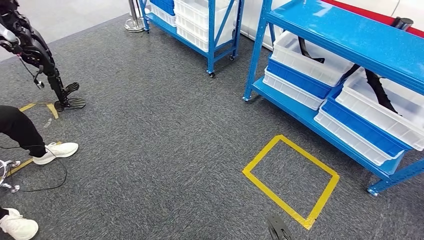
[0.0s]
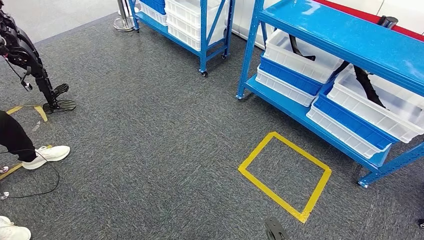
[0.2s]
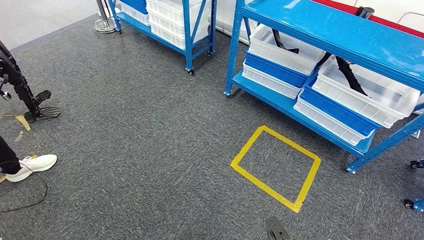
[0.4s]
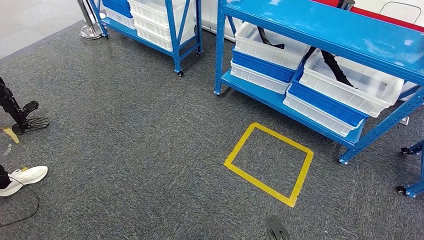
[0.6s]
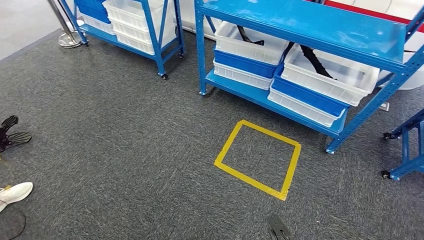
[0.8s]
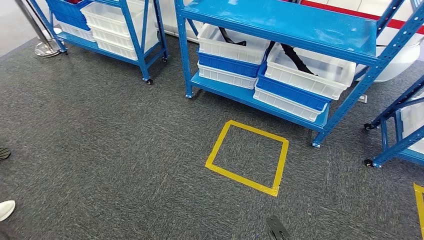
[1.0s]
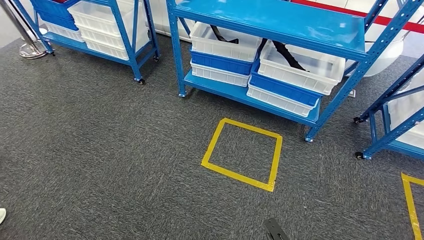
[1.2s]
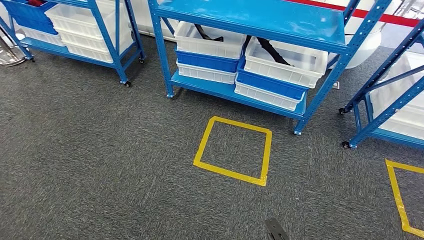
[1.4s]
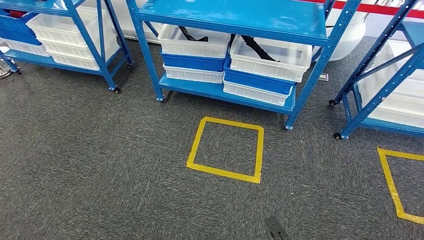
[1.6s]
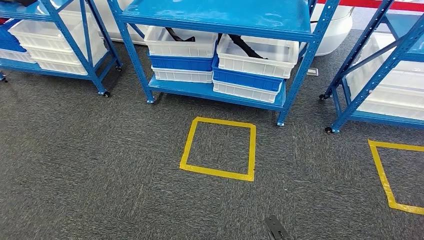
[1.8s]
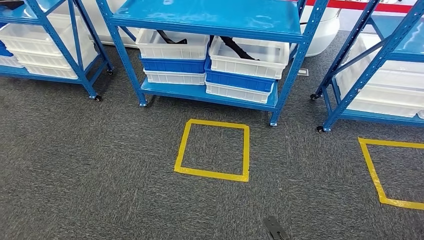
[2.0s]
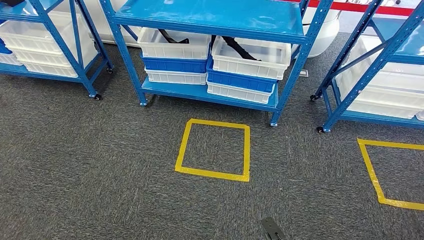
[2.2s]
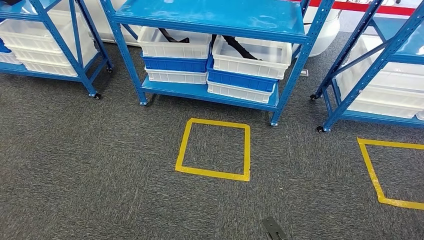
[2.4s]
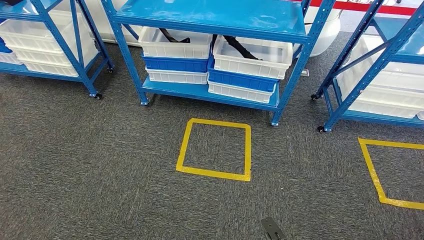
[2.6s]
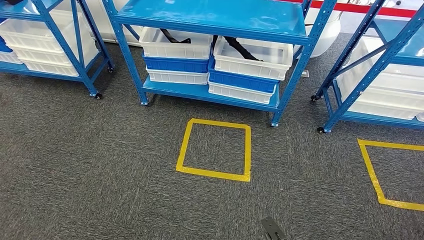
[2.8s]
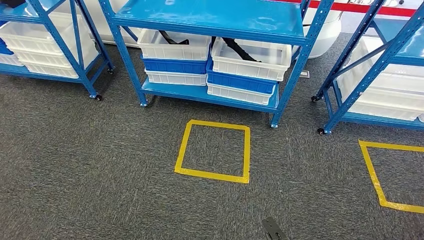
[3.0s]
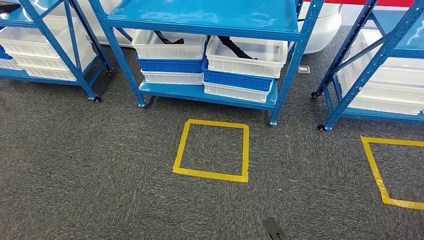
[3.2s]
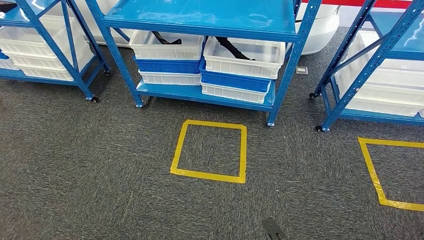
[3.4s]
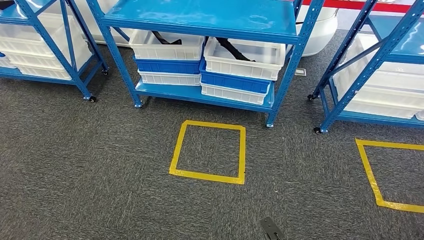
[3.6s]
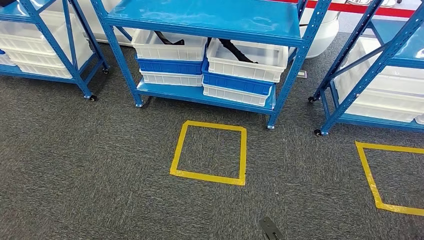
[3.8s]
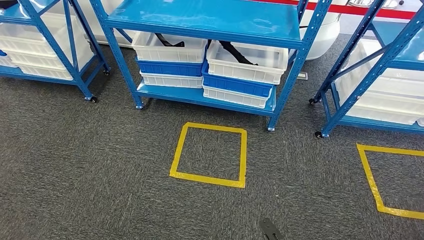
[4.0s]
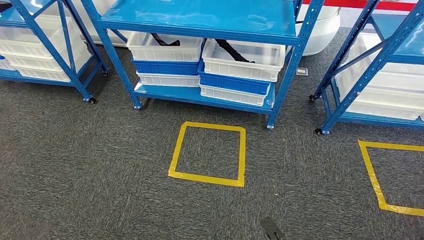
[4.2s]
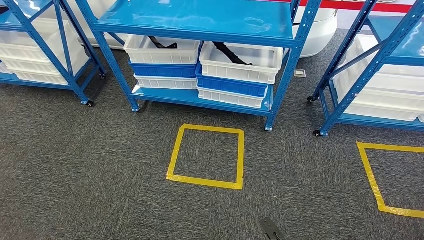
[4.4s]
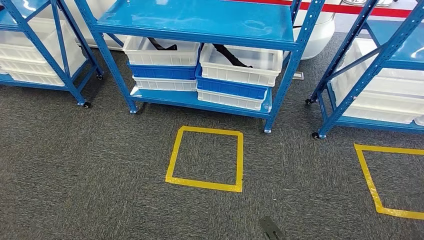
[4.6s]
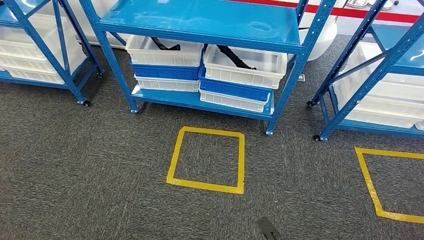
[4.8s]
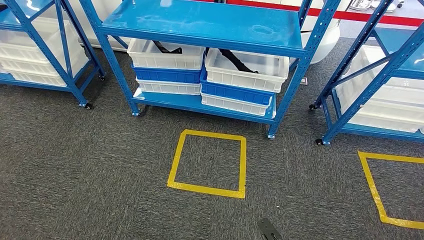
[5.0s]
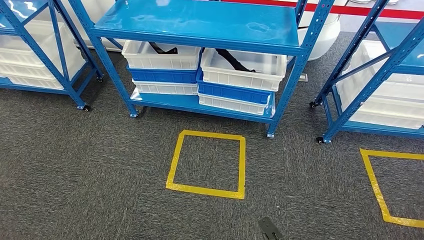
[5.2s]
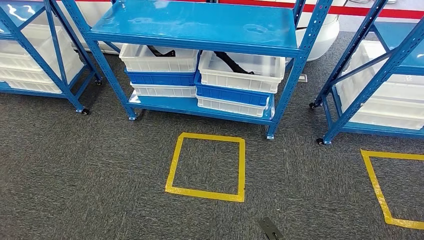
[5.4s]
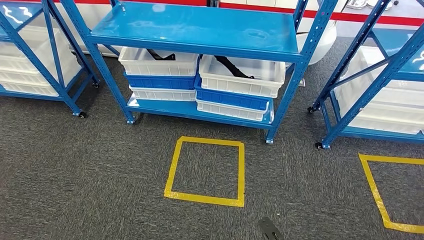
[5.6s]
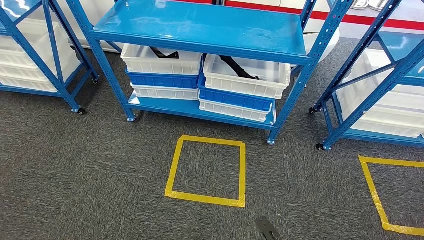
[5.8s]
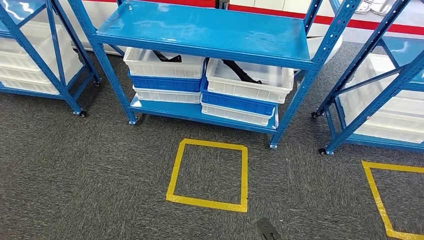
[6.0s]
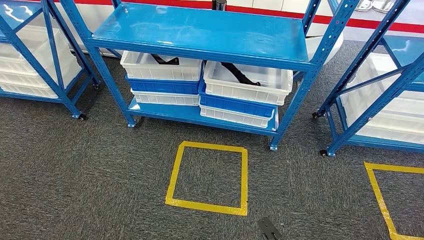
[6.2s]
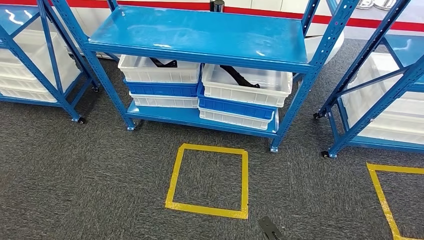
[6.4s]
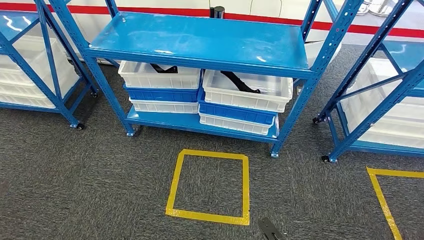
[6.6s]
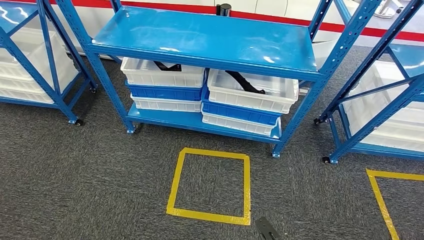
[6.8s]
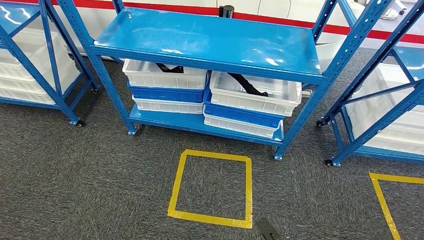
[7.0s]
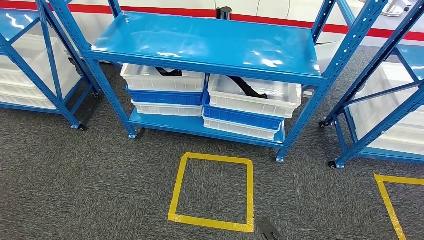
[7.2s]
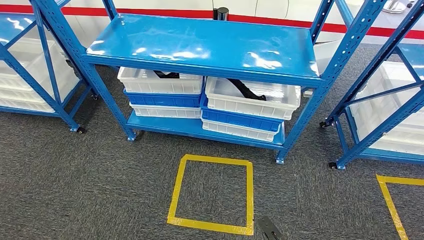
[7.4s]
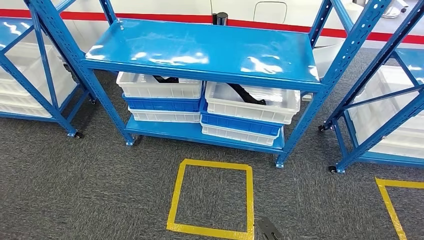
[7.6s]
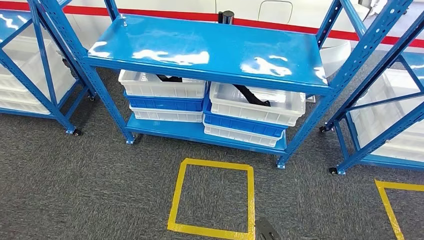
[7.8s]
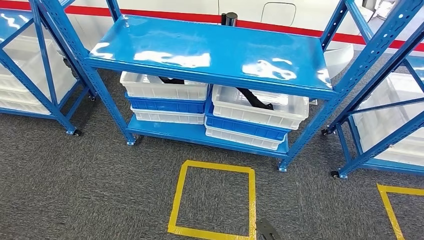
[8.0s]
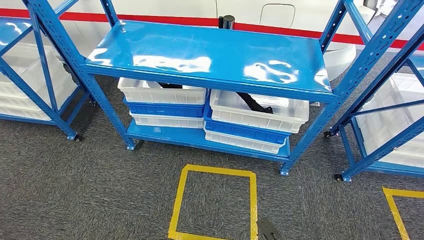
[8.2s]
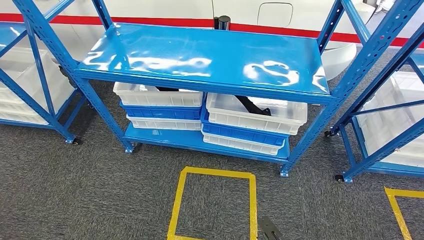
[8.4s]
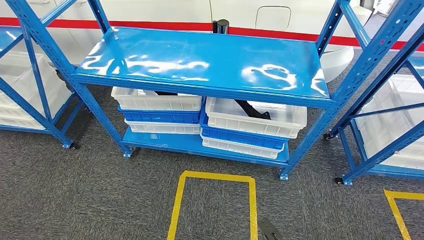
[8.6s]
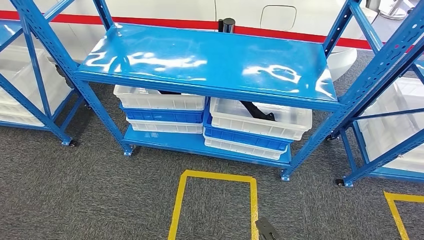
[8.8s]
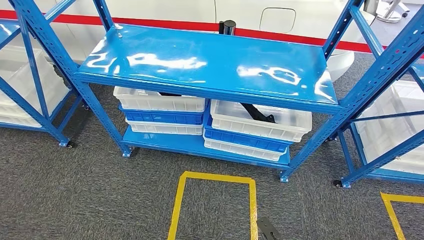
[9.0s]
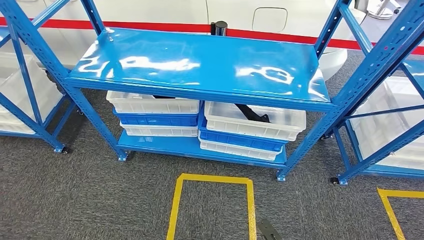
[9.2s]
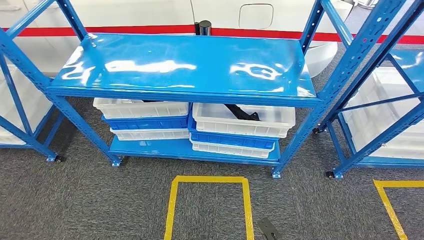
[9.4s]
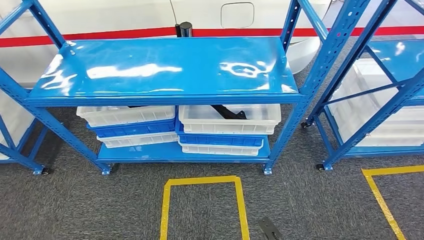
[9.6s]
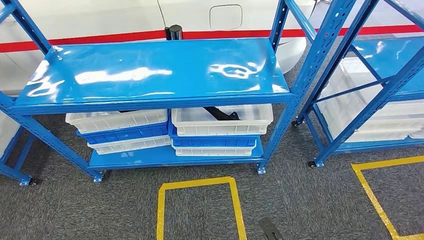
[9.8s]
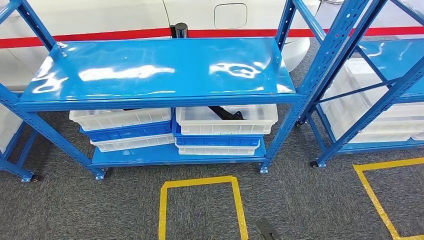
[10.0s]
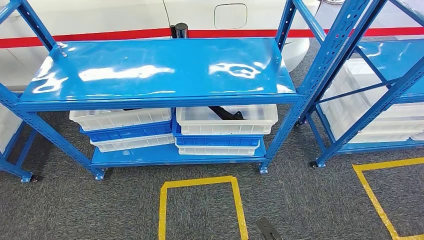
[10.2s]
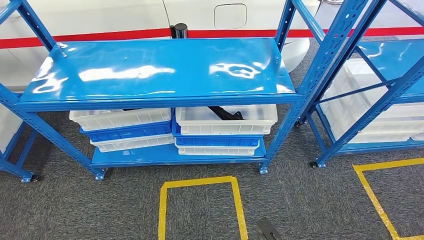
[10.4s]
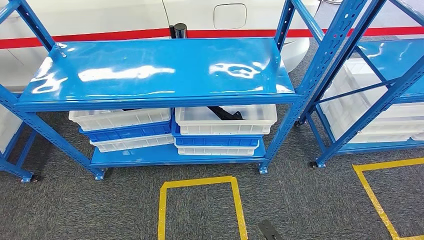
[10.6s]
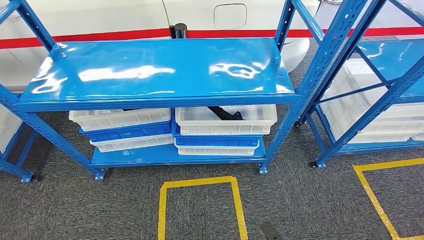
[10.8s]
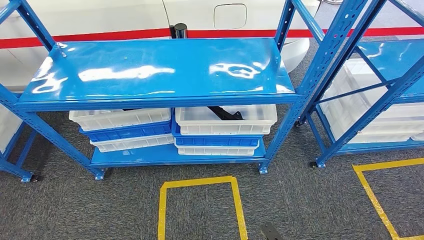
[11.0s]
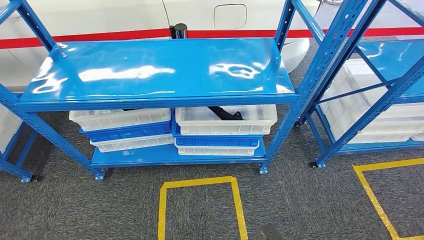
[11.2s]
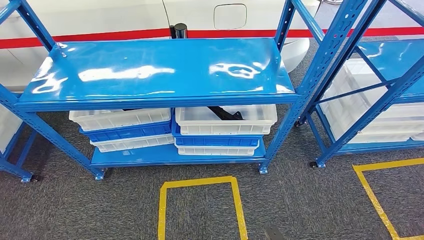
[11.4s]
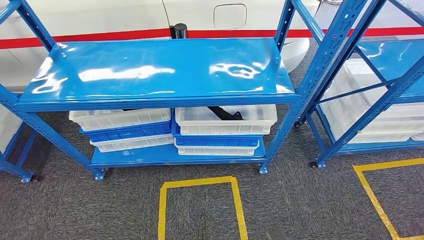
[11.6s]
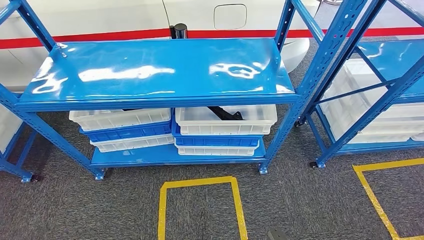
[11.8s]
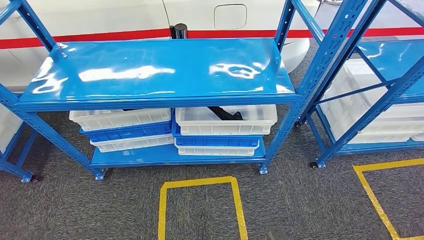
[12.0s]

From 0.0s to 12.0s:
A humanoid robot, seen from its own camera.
Step, from 0.0s to 12.0s: Move to the initial position of the shelf.
